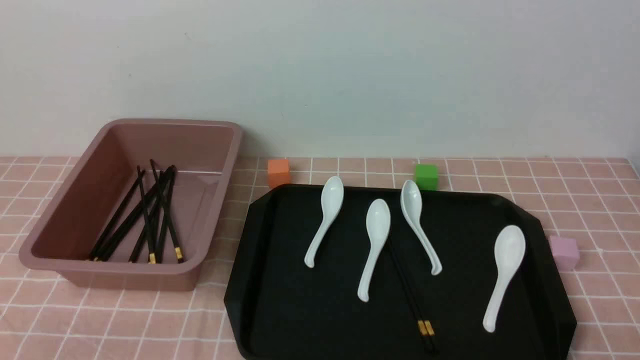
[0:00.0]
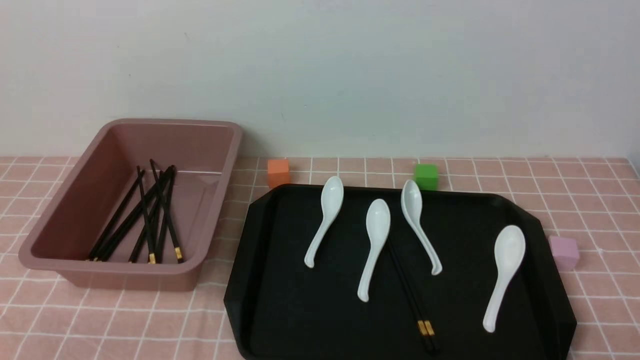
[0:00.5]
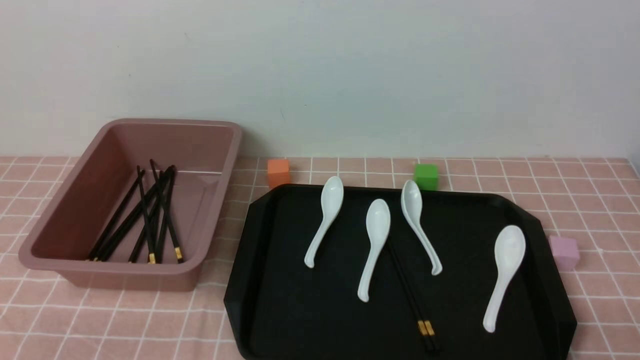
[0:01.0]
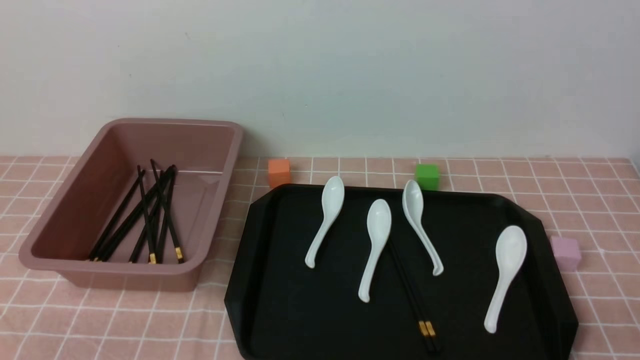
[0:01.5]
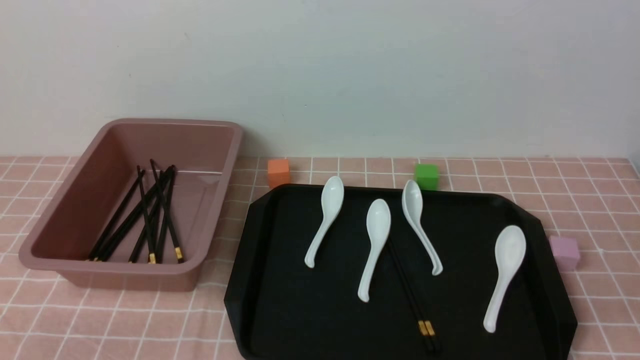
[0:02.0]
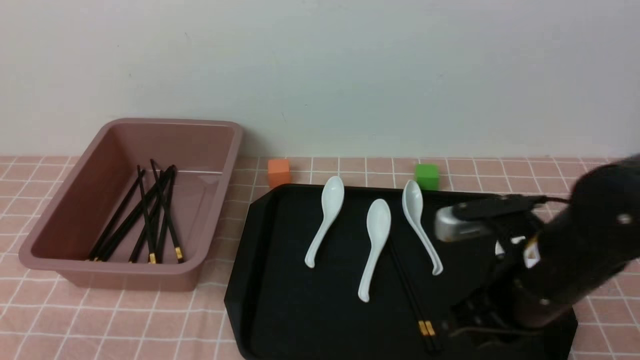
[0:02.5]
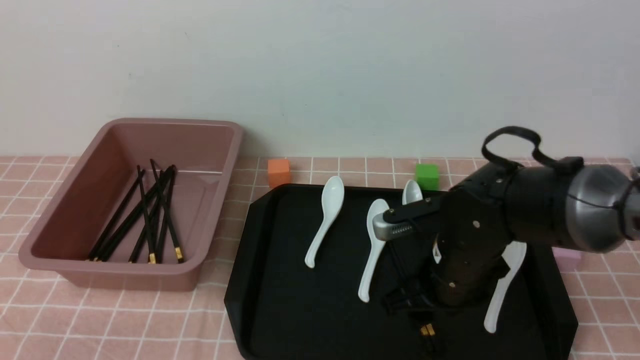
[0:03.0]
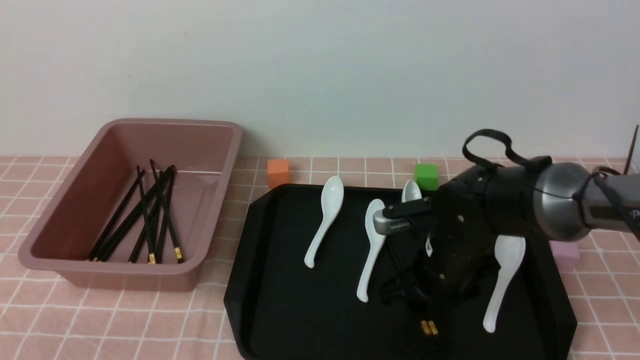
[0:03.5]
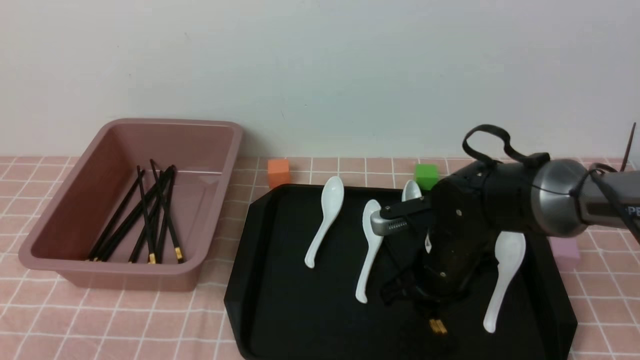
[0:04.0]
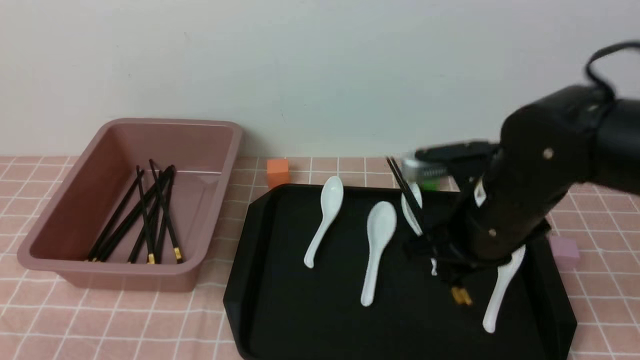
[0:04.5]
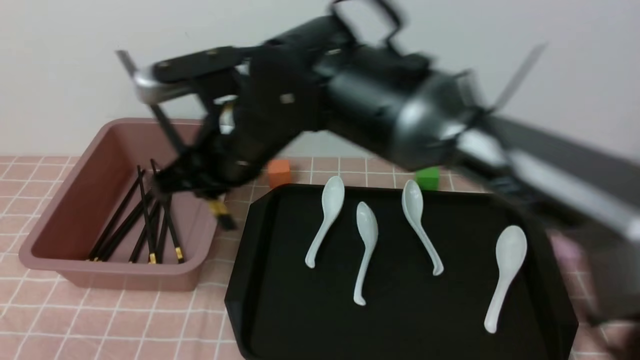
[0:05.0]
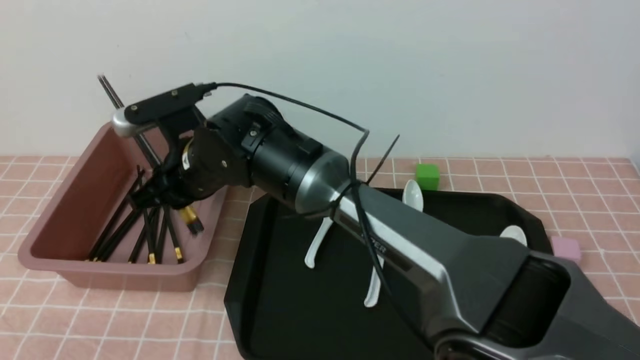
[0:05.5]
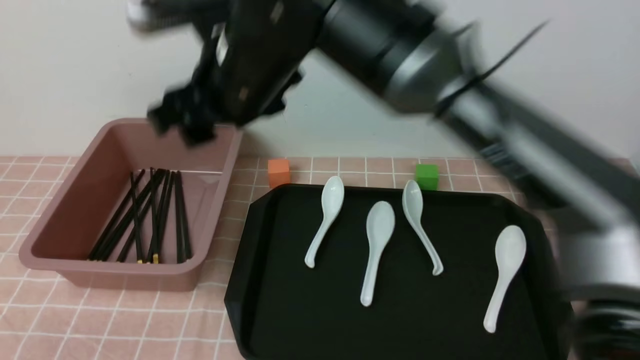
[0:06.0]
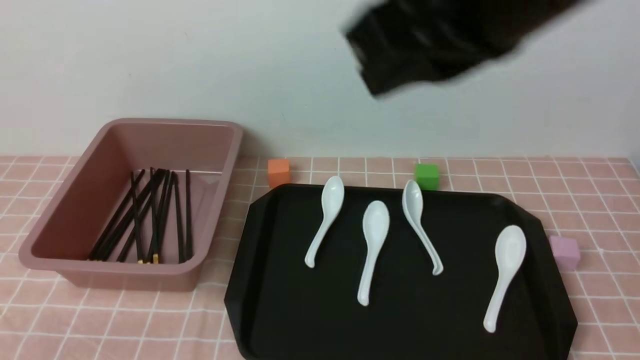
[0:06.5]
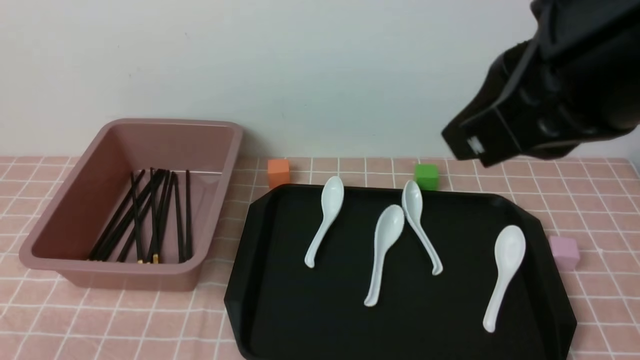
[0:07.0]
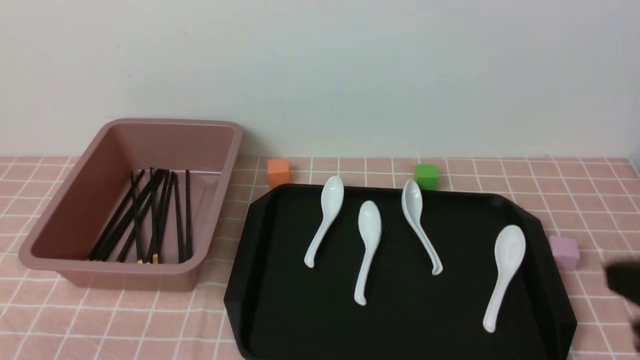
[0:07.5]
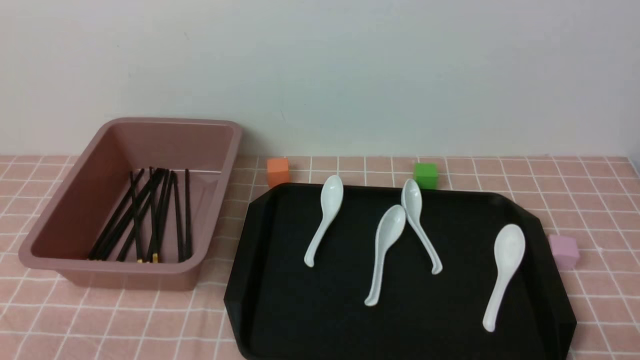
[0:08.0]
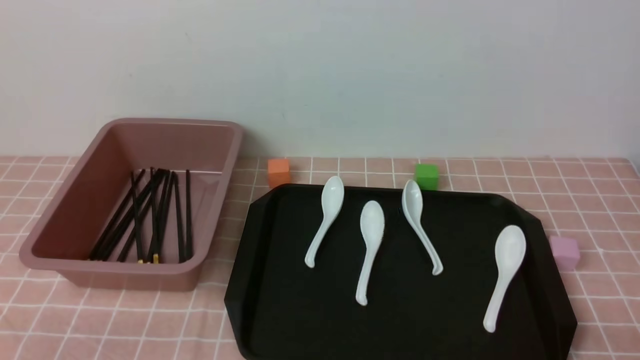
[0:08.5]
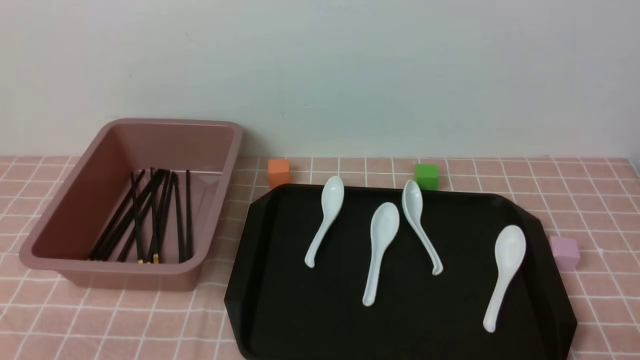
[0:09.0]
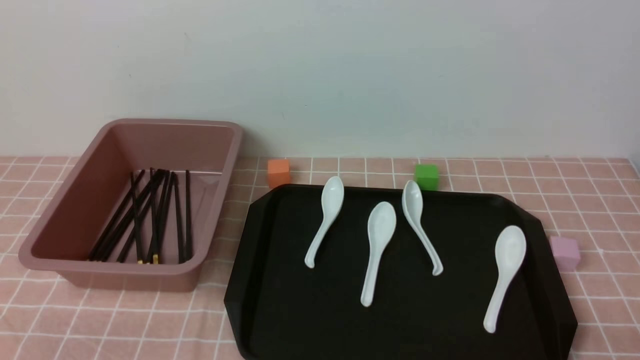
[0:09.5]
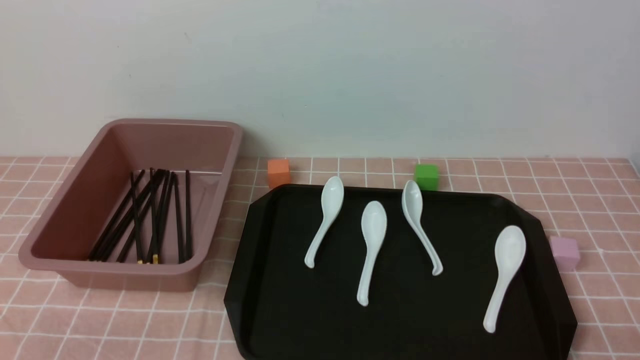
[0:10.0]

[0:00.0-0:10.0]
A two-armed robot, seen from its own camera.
Step, 0:00.0 to 0:04.0: use the right arm to grab a pair of chopsticks.
Step, 0:04.5 to 0:05.5: use the right arm to put the chopsticks into the lunch box.
0:02.0 to 0:04.0: The right gripper goes approximately 25 cm forward, to the left and downward, and opens, then closes again.
0:04.0 to 0:06.0: The right gripper goes up and down, about 25 cm each way, reversing 2 times, and opens up.
0:06.0 to 0:08.0: The right gripper heads to the right, backward and downward, covering roughly 50 cm, and closes up.
0:08.0 to 0:10.0: The two grippers keep their place.

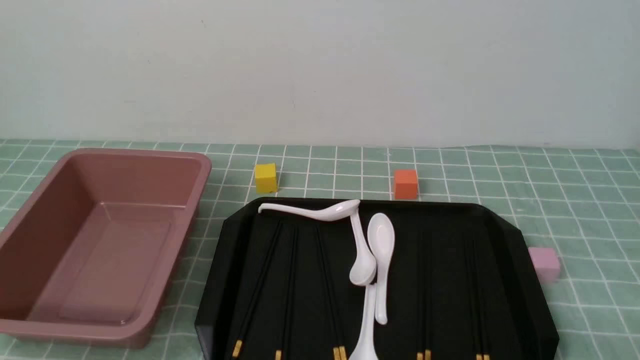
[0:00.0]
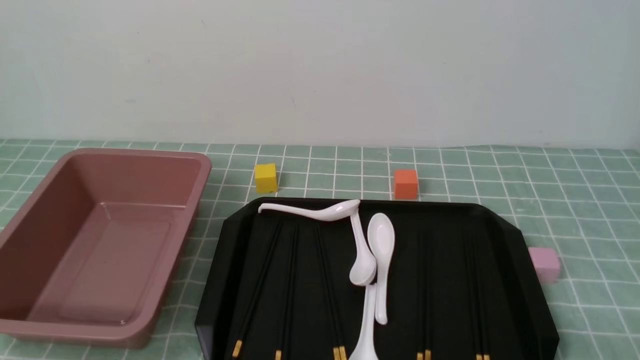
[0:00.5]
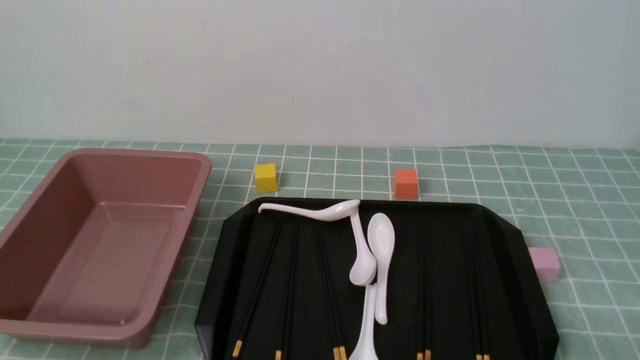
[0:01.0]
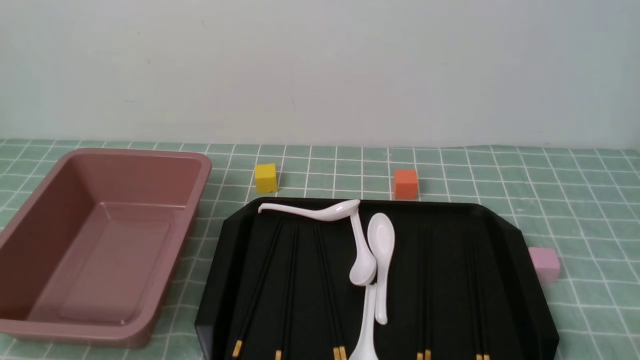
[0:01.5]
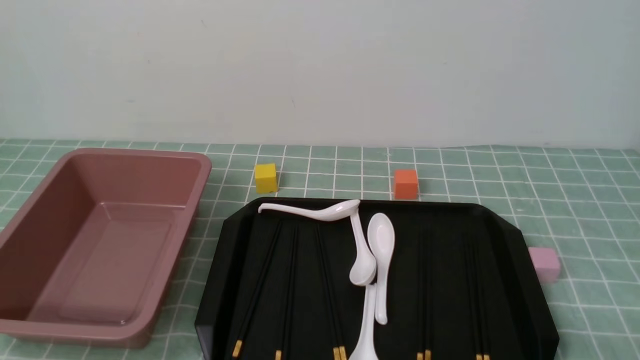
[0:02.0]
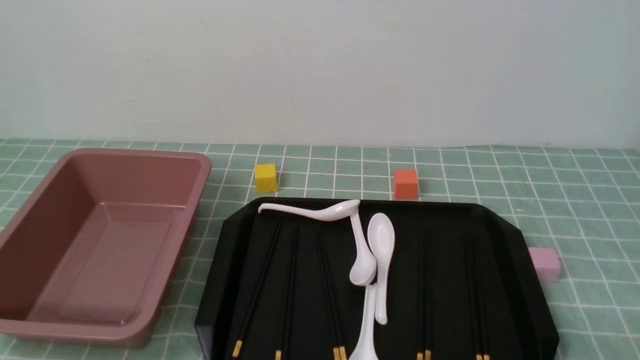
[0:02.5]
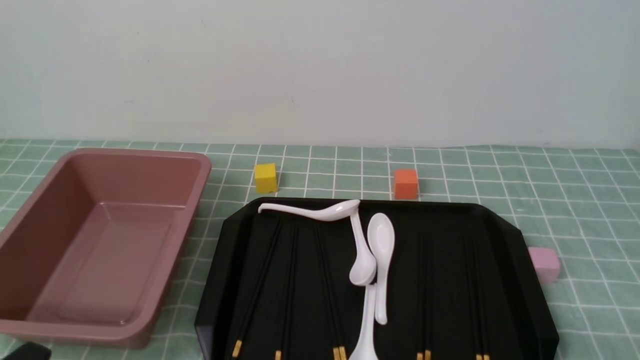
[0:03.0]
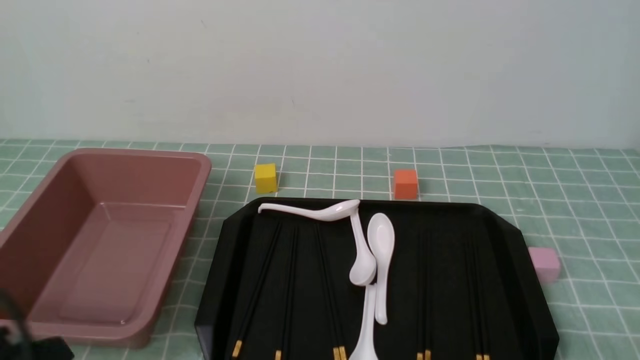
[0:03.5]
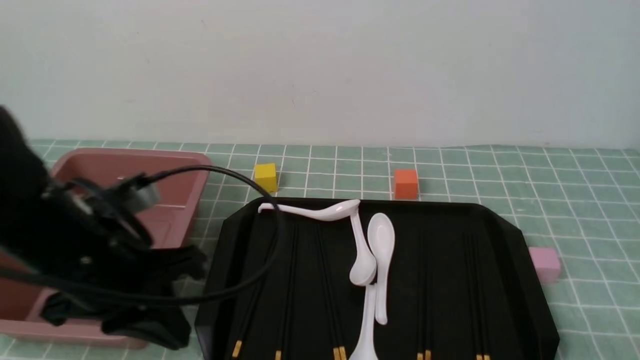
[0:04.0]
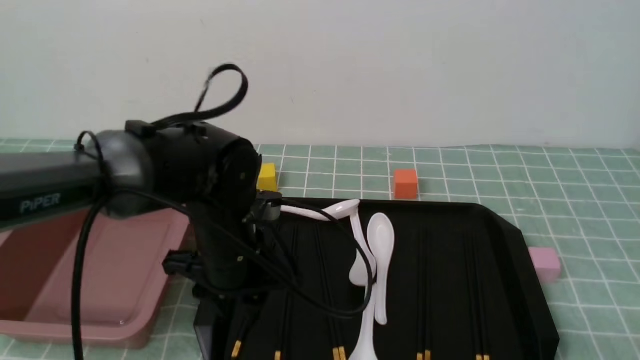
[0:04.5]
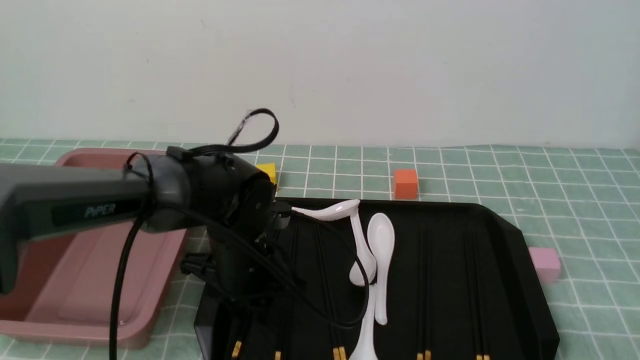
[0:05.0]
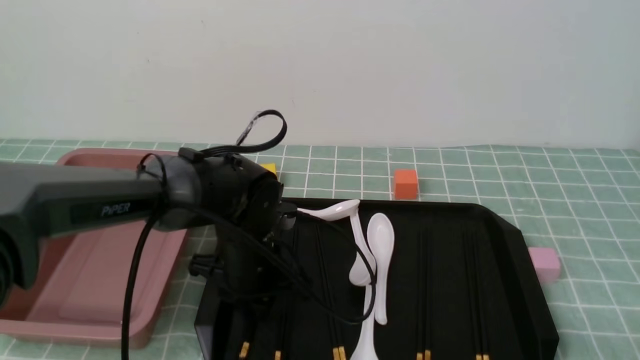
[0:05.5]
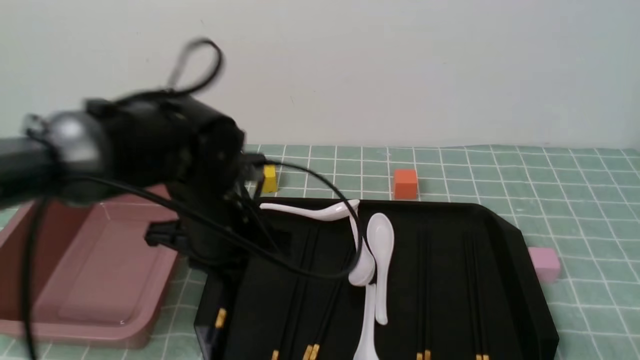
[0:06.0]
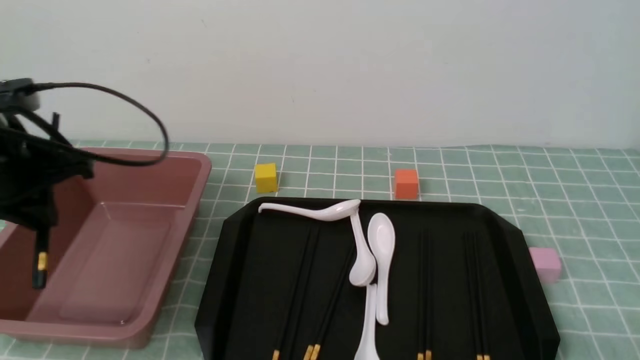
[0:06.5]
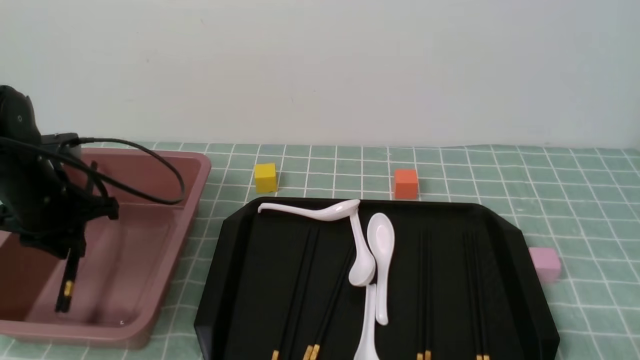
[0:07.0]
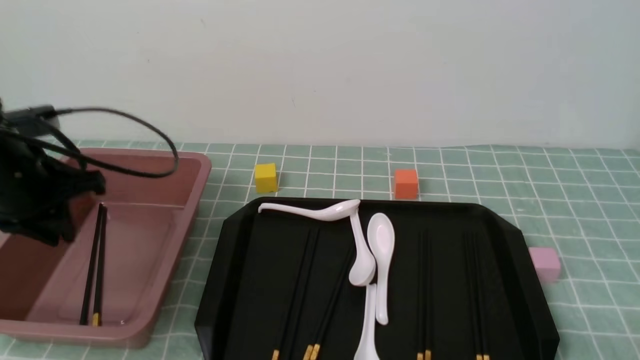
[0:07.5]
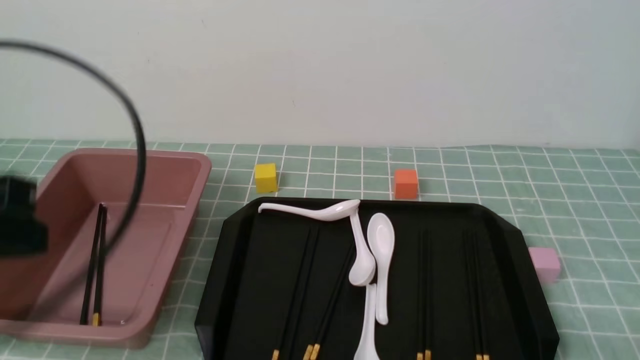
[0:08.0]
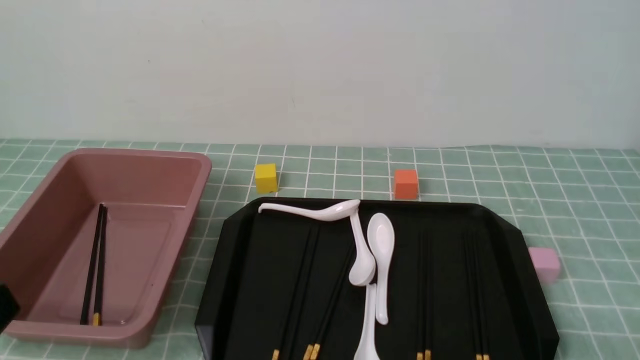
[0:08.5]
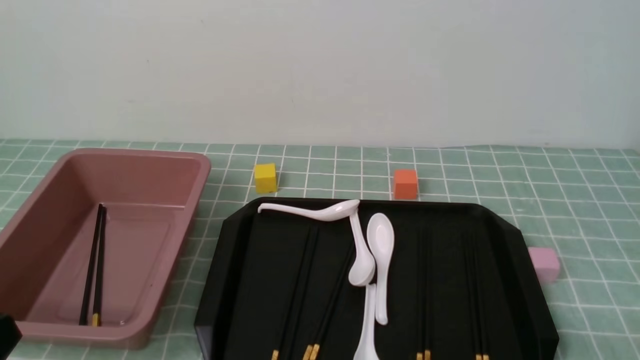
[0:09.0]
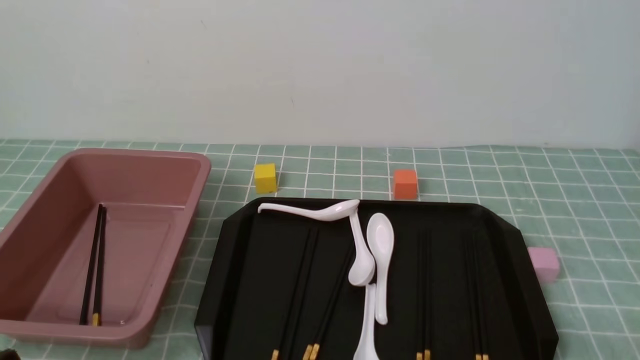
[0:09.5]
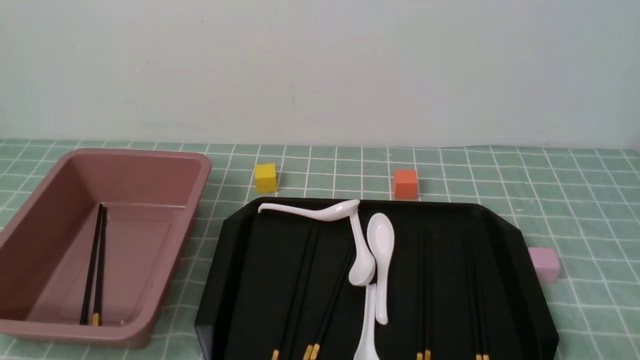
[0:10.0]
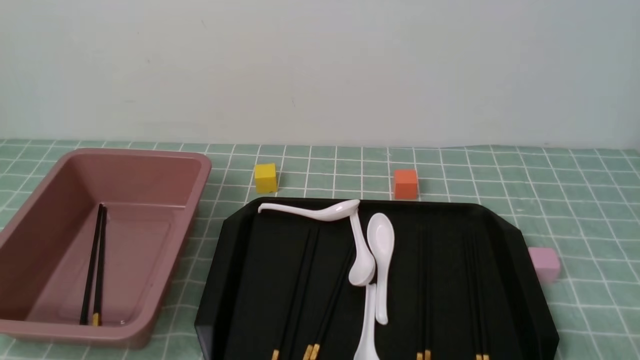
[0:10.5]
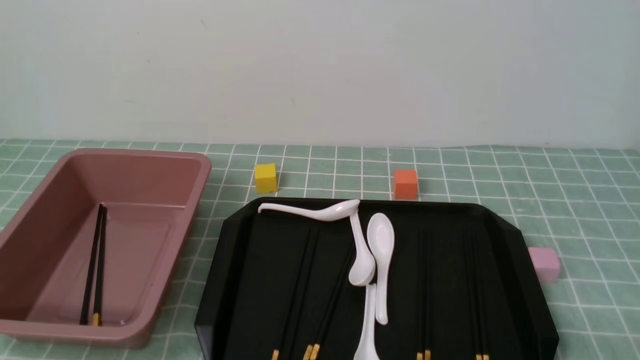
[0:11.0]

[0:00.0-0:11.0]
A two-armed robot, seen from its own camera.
Step, 0:00.0 to 0:06.0: use the left arm to grab a pair of chopsticks.
Step, 0:06.5 to 0:07.5: use the left arm to put the chopsticks into the lunch box.
0:00.0 to 0:02.0: The two grippers keep their place.
0:02.0 to 0:03.5: The left gripper moves upward, roughly 10 cm, and closes up.
0:03.5 to 0:05.5: The left gripper goes roughly 30 cm forward, to the right and downward, and opens.
0:05.5 to 0:07.5: The left gripper heads to the left and upward, covering approximately 25 cm.
0:07.5 to 0:09.0: The left gripper shifts about 25 cm backward, and closes its fingers.
